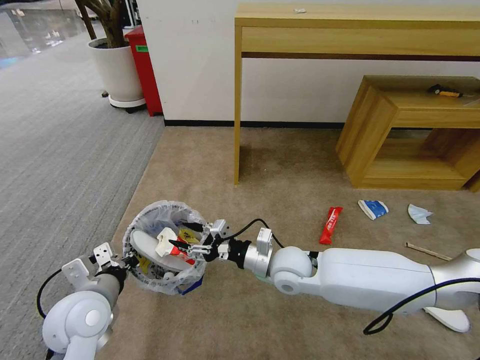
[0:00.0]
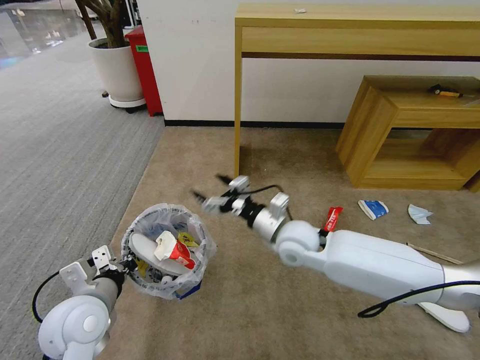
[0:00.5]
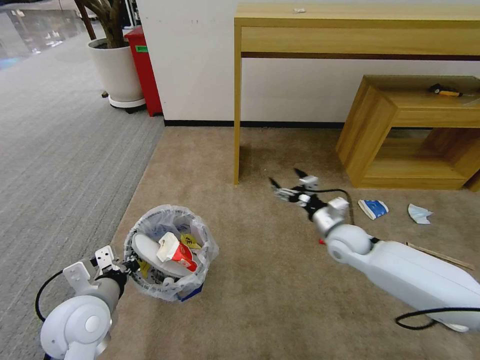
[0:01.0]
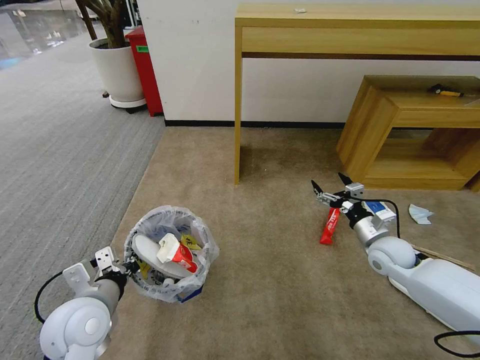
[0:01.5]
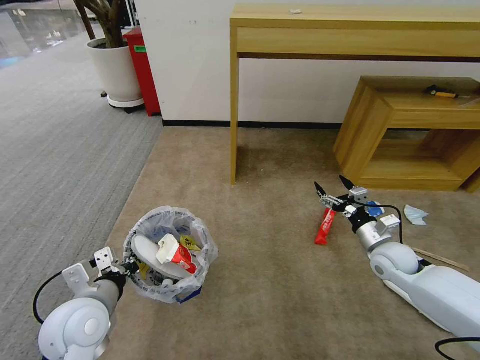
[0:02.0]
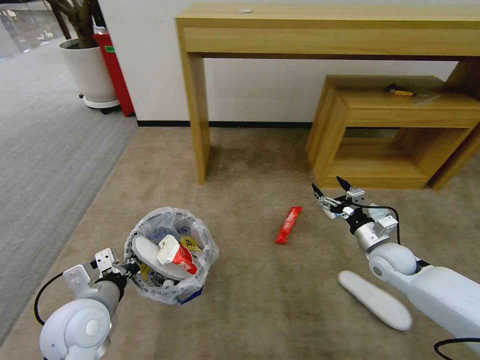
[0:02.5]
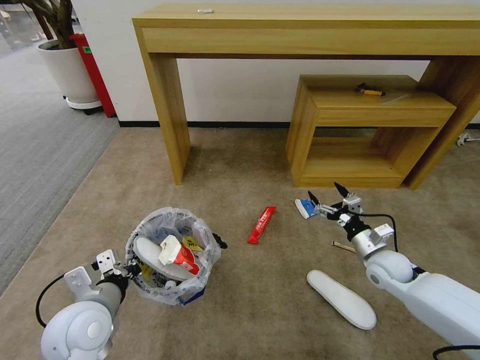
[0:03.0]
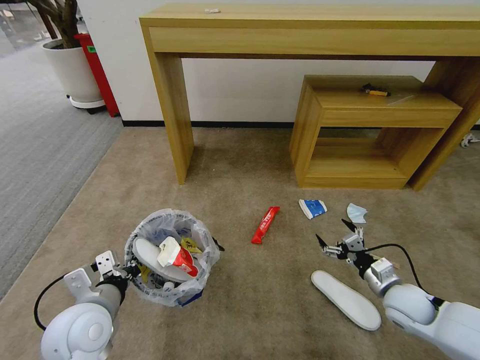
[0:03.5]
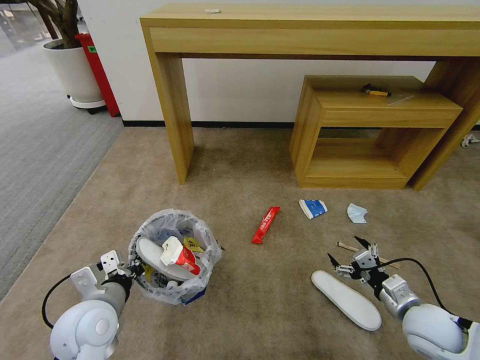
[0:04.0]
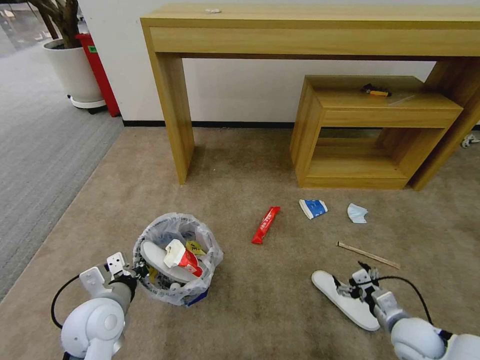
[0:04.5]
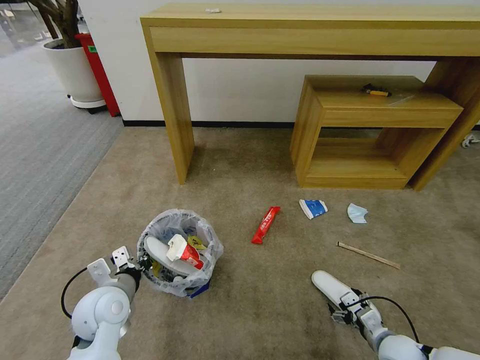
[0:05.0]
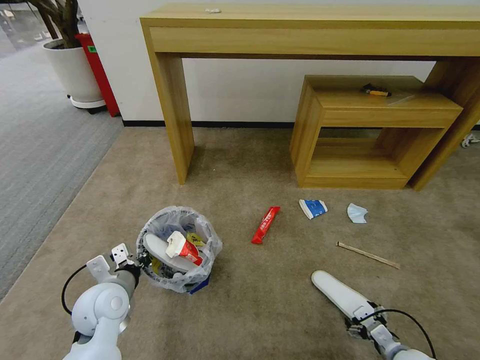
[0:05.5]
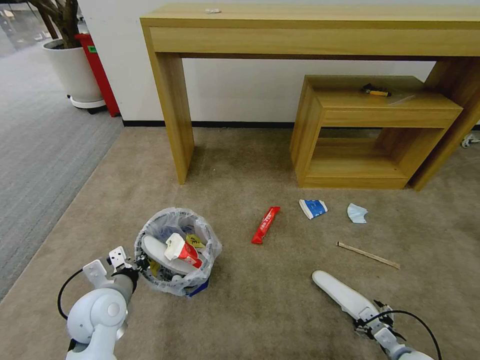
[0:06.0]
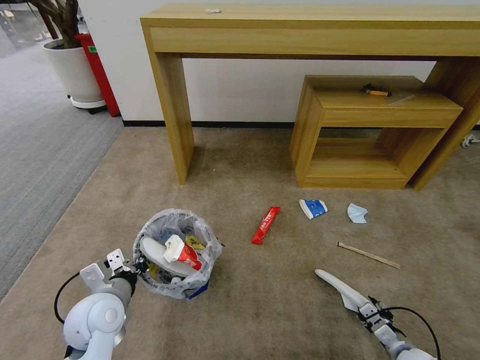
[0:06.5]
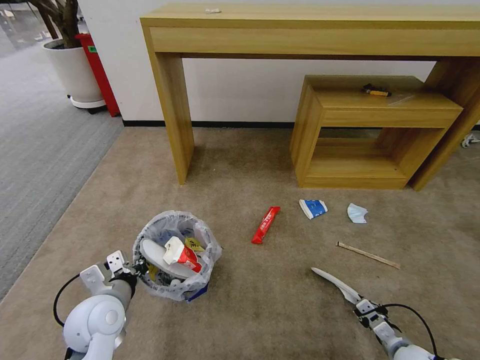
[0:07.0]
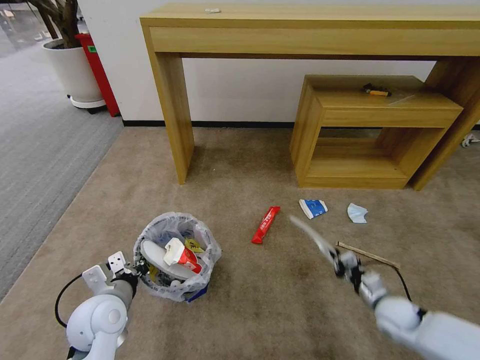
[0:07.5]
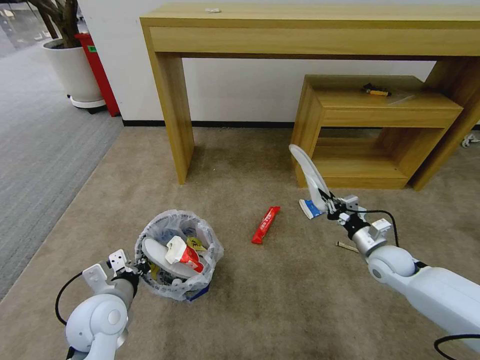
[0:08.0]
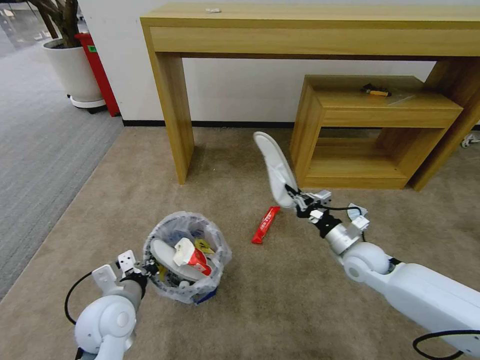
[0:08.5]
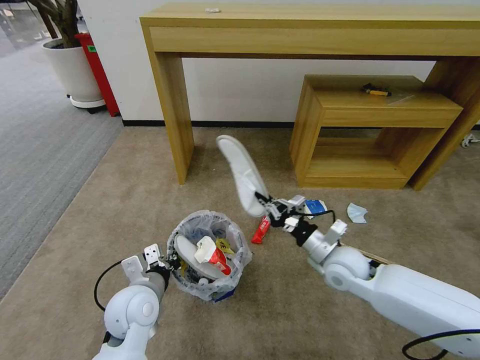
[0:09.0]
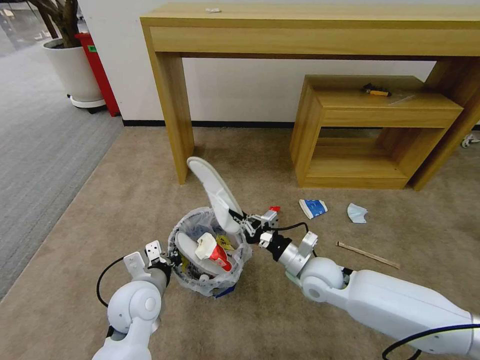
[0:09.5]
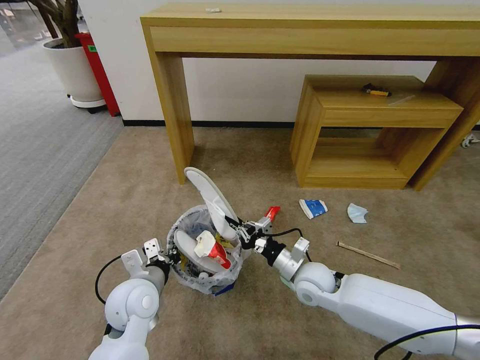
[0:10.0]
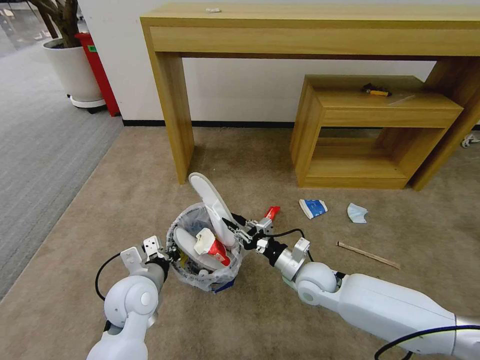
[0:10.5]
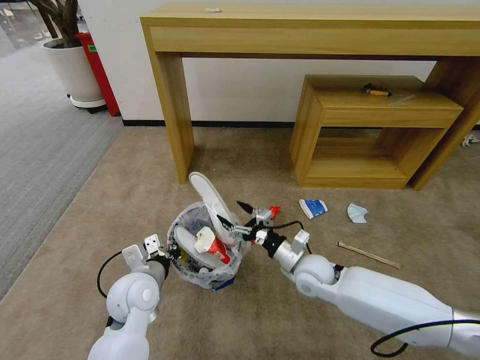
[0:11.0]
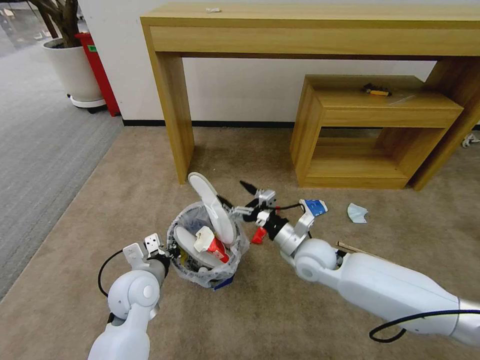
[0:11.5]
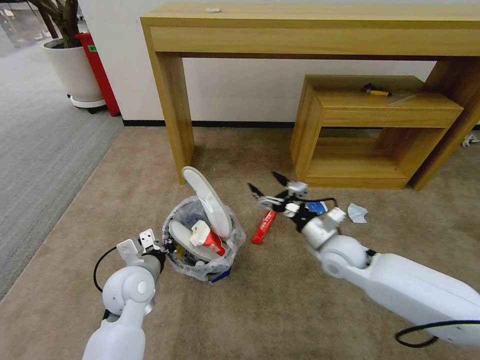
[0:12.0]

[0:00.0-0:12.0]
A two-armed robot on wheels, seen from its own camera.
Task of the whole recording: Pick up the trash bin and place the garbage on the floor into it.
0:00.0 to 0:02.0: The right gripper shifts roughly 25 cm to the right.
0:02.0 to 0:04.0: The right gripper shifts approximately 15 cm backward.
0:04.0 to 0:06.0: The right gripper heads downward and backward, covering some 15 cm.
0:06.0 to 0:08.0: The right gripper heads forward and upward, covering some 25 cm, and closes its fingers.
0:08.0 to 0:10.0: The right gripper heads to the left, covering some 20 cm; the left gripper travels to the right by approximately 5 cm.
0:10.0 to 0:12.0: The right gripper shifts approximately 10 cm upward and to the right, and opens up.

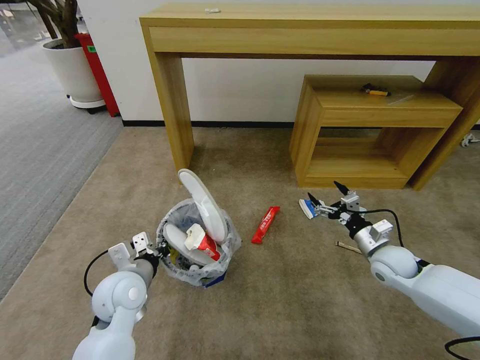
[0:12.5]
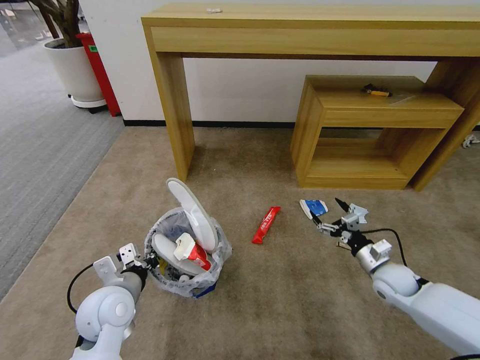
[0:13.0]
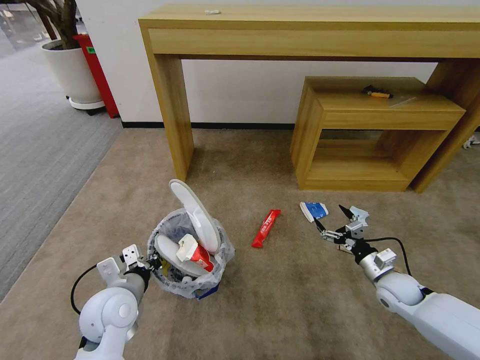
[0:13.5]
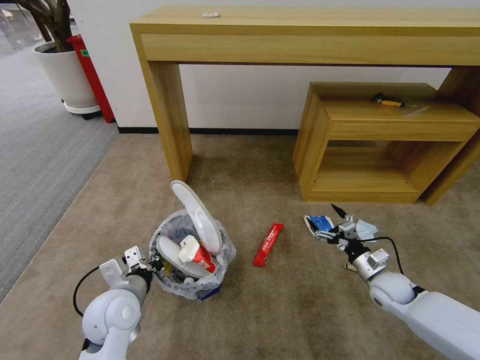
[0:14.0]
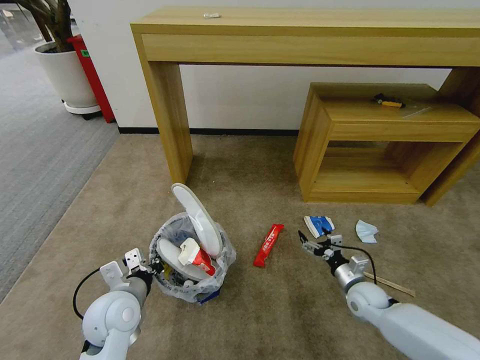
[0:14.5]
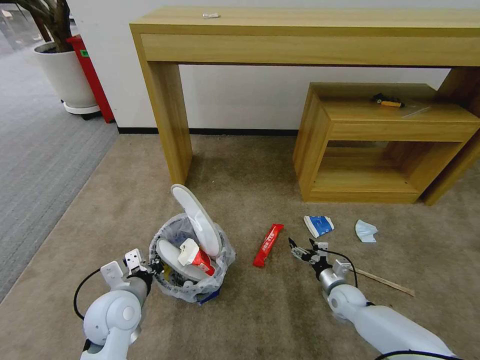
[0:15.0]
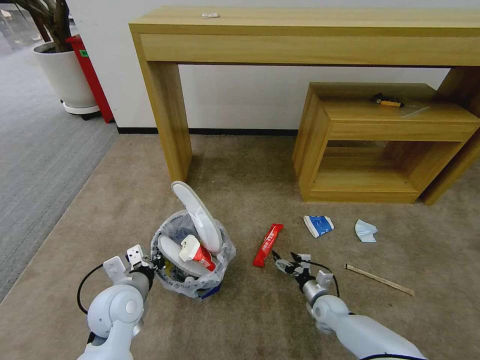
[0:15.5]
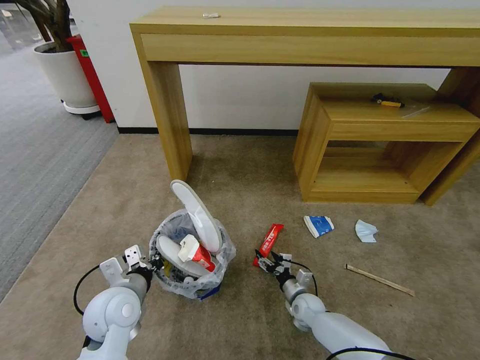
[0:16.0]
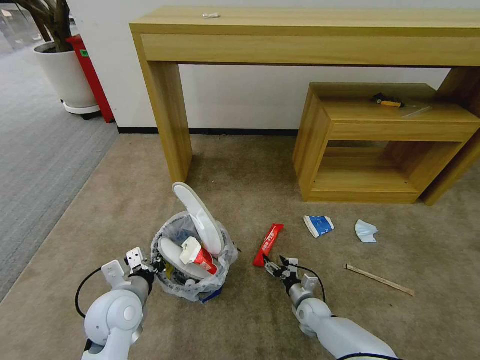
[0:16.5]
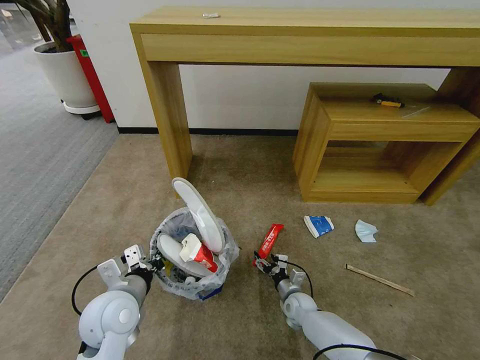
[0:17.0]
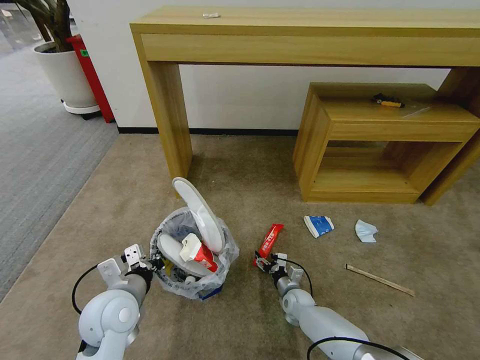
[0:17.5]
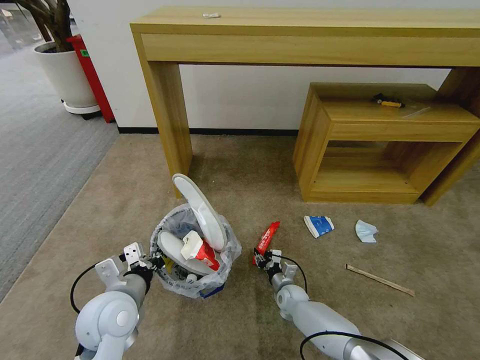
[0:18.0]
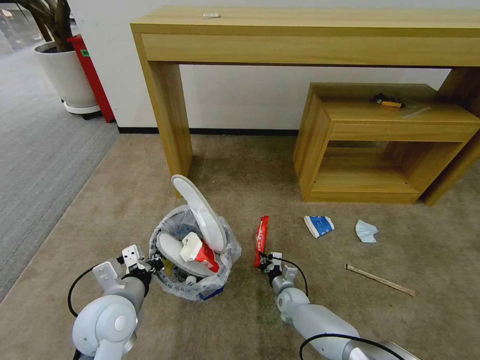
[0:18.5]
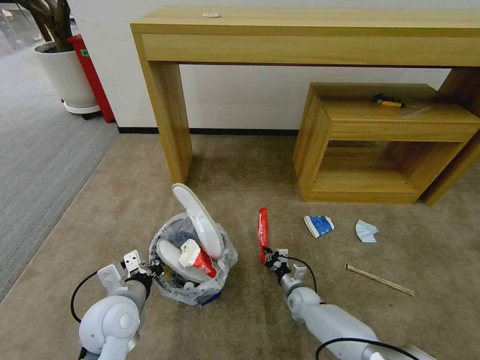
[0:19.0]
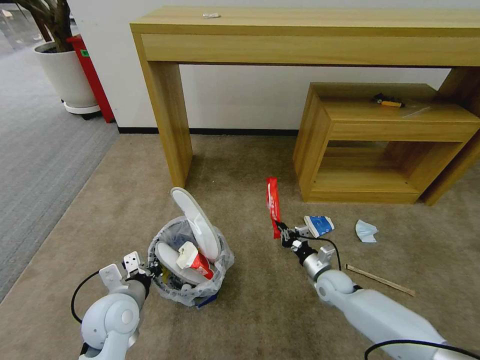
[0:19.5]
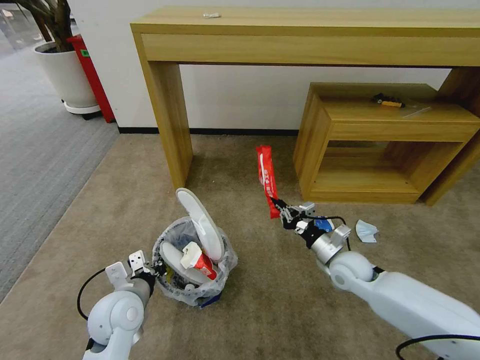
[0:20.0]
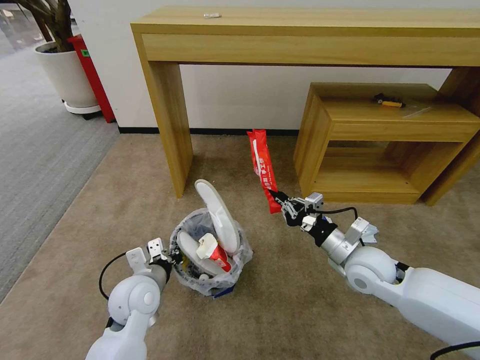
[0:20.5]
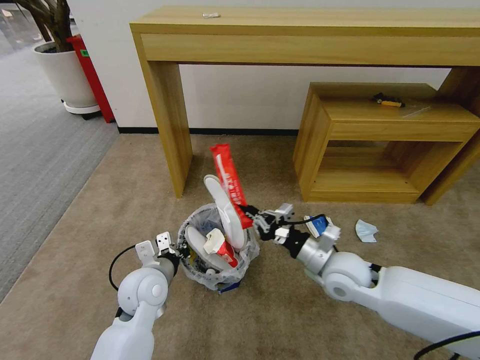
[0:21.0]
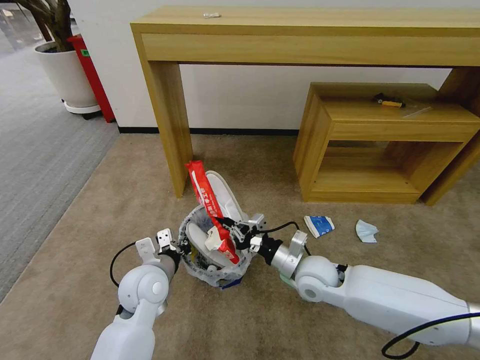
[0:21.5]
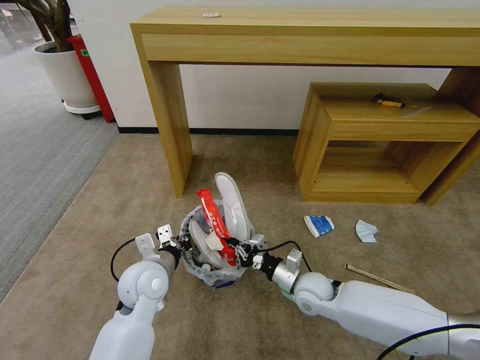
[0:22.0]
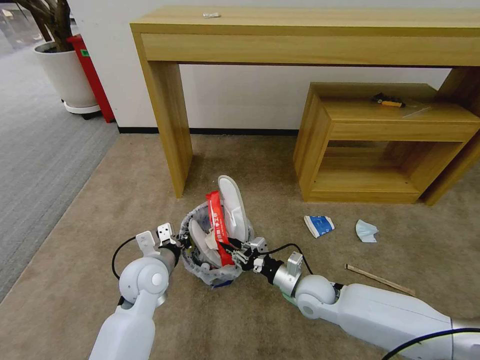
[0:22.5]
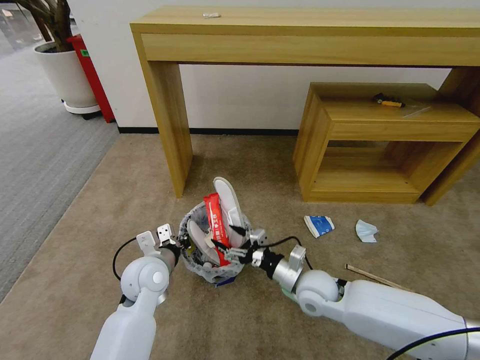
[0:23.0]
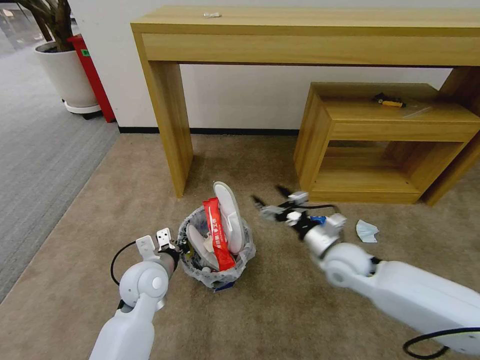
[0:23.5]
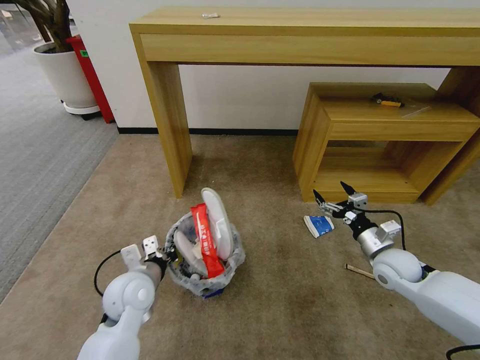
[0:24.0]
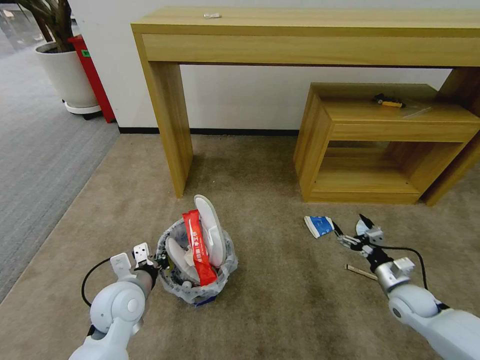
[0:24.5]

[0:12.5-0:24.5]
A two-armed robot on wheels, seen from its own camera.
Task of the whole recording: Pick up the trash bin and place the garbage on the floor into it.
0:12.5 to 0:14.5: The right gripper heads downward, covering roughly 10 cm.
0:14.5 to 0:16.5: The right gripper heads downward and to the left, covering about 15 cm.
0:16.5 to 0:18.5: The right gripper heads to the left, covering about 5 cm, and closes.
0:18.5 to 0:20.5: The right gripper travels upward by approximately 30 cm; the left gripper heads forward, covering about 5 cm.
0:20.5 to 0:22.5: The right gripper is displaced downward and to the left by some 15 cm.
0:22.5 to 0:24.5: The left gripper ends up approximately 5 cm from where it was; the right gripper travels to the right by about 25 cm, and opens its fingers.

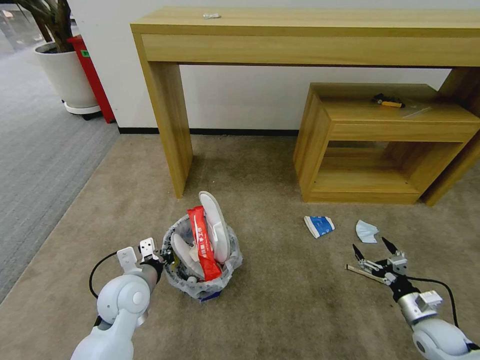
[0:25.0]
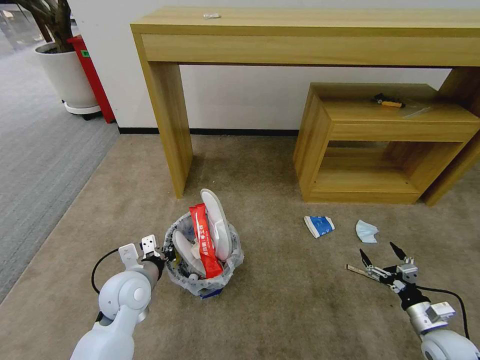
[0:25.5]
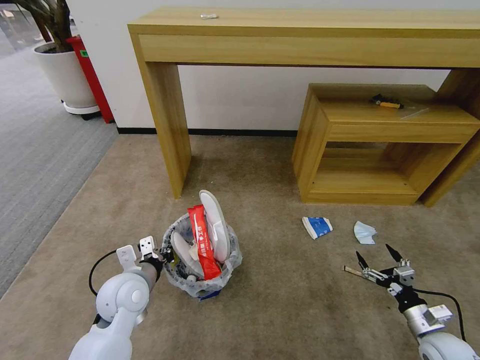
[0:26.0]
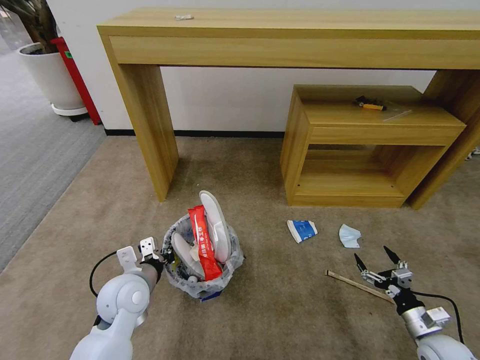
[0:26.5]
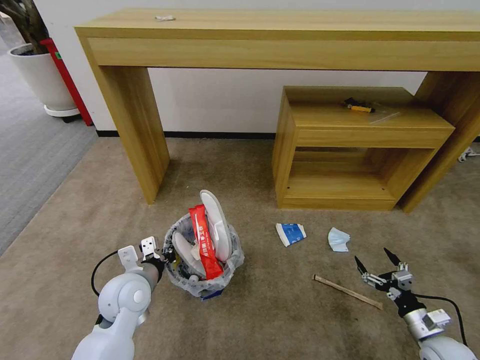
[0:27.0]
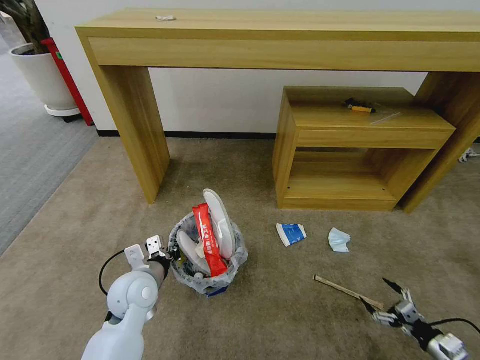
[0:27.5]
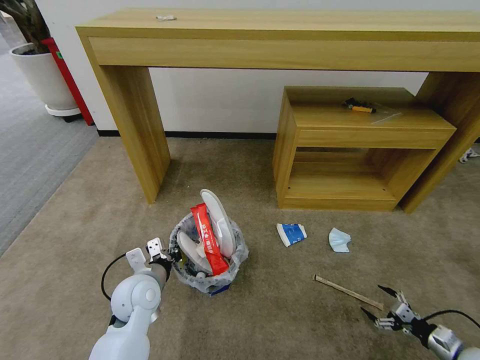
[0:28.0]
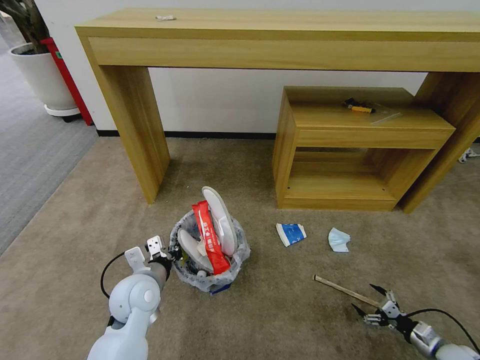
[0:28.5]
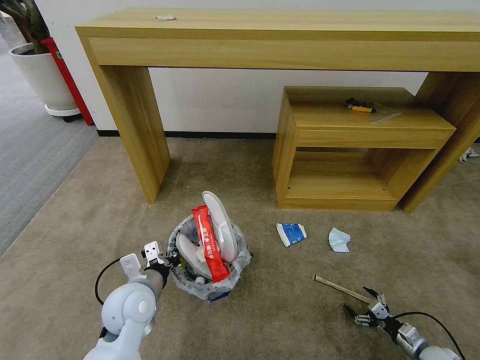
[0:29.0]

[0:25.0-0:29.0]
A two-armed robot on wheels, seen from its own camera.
Task of the whole recording: Pick up the trash bin and place the garbage on the floor into it.
0:27.0 to 0:29.0: The right gripper travels downward and to the right by some 10 cm.
